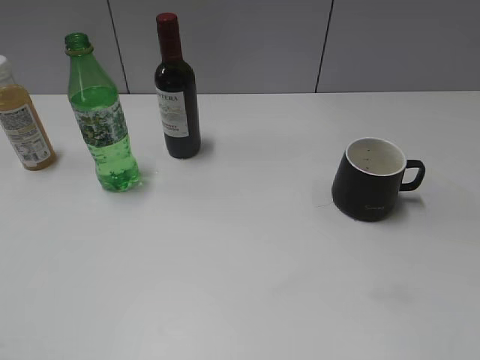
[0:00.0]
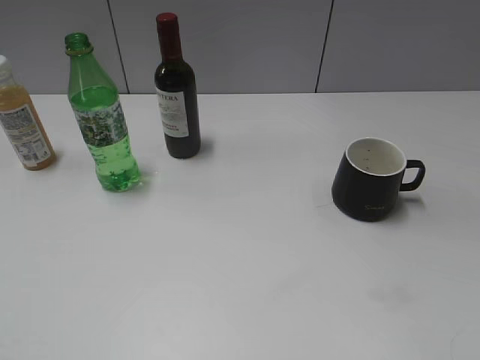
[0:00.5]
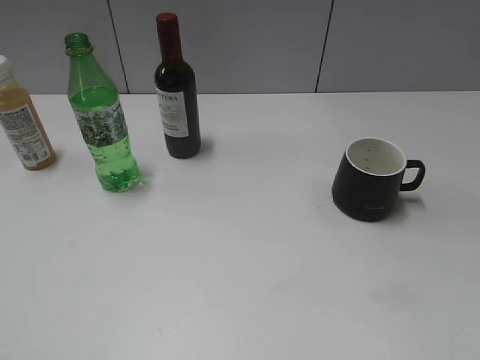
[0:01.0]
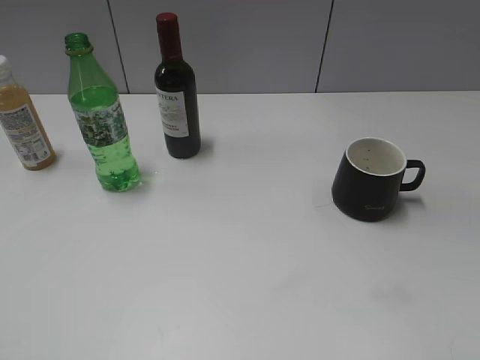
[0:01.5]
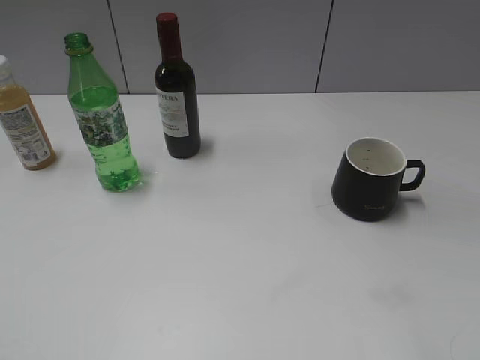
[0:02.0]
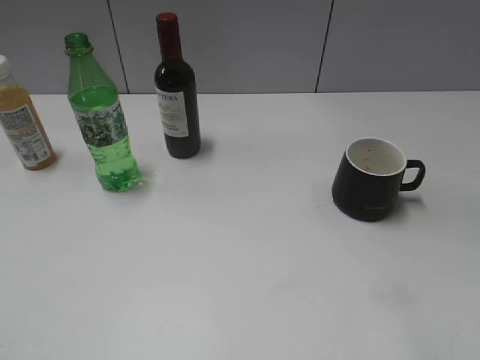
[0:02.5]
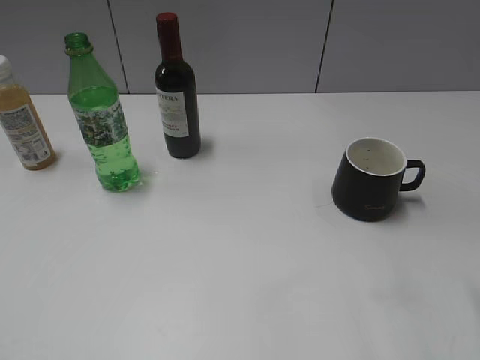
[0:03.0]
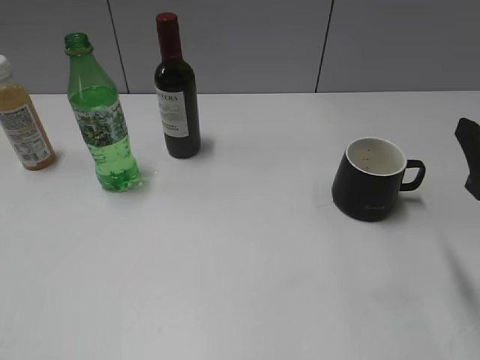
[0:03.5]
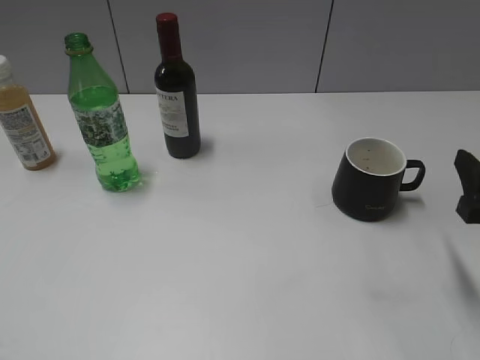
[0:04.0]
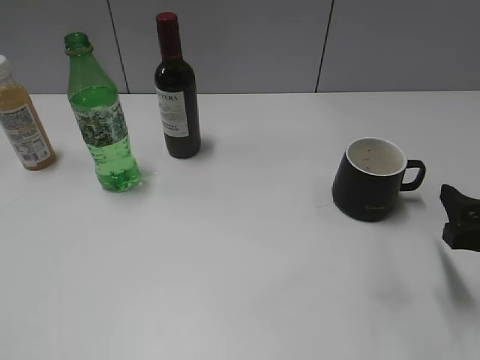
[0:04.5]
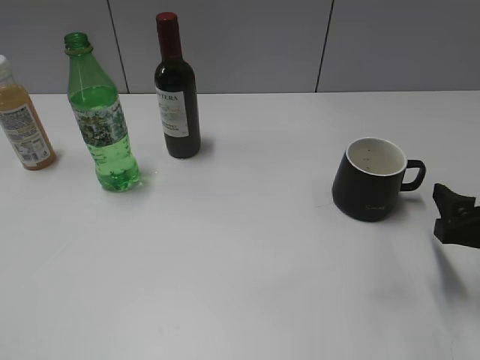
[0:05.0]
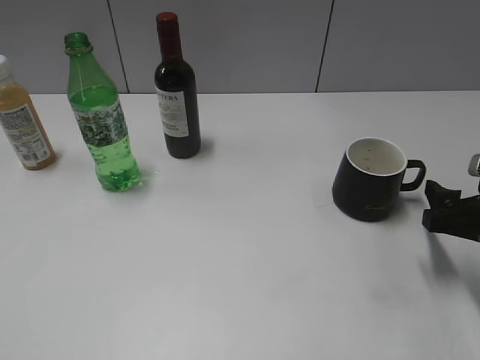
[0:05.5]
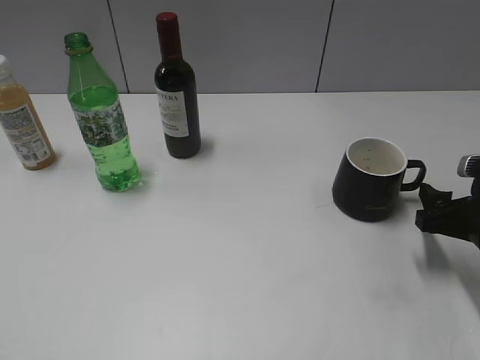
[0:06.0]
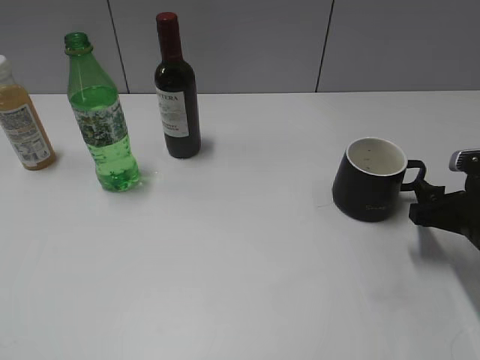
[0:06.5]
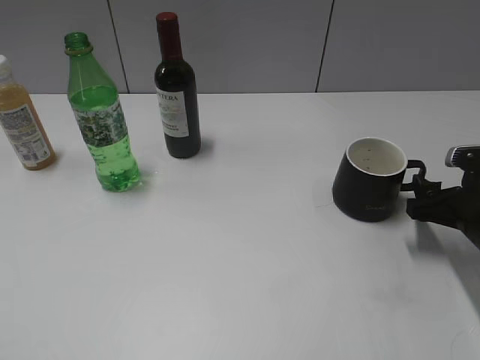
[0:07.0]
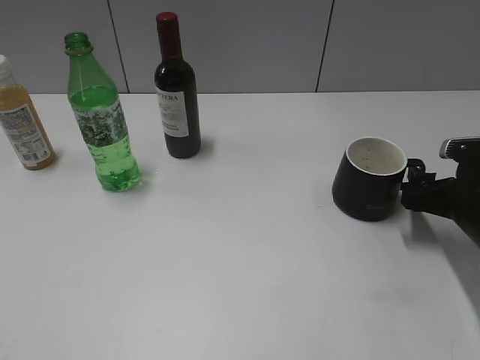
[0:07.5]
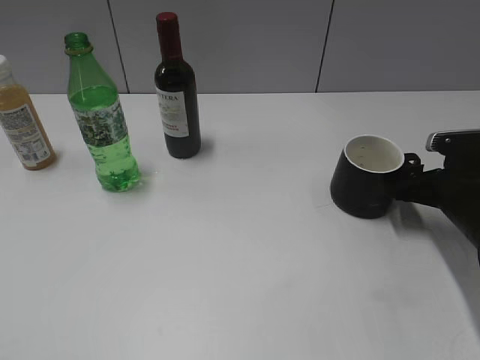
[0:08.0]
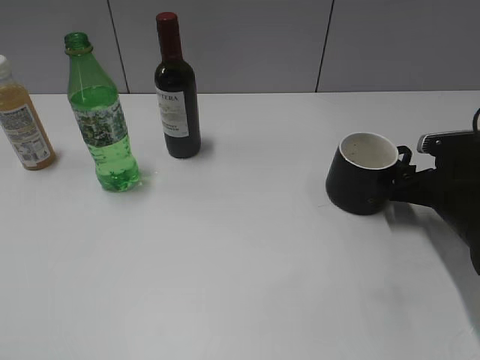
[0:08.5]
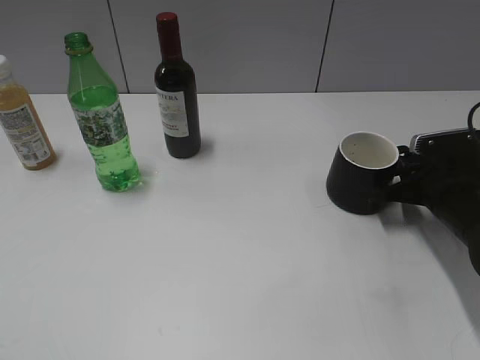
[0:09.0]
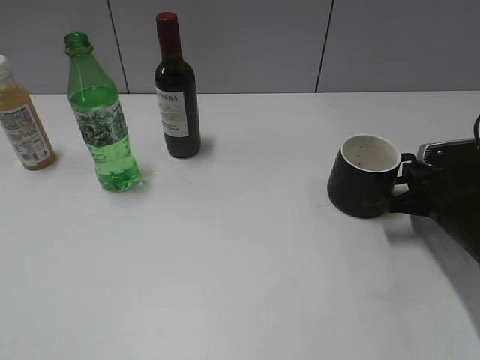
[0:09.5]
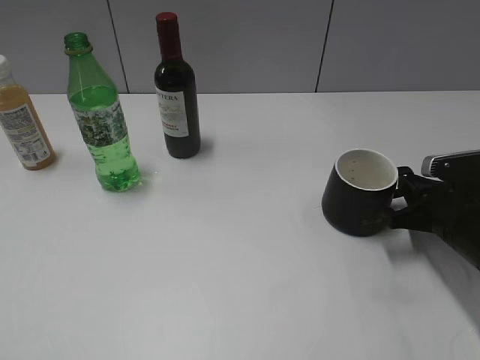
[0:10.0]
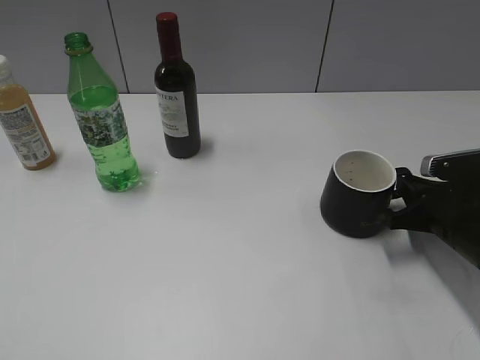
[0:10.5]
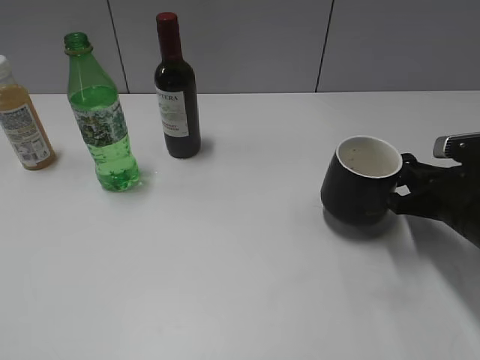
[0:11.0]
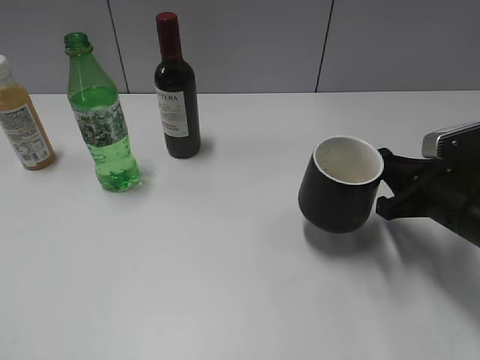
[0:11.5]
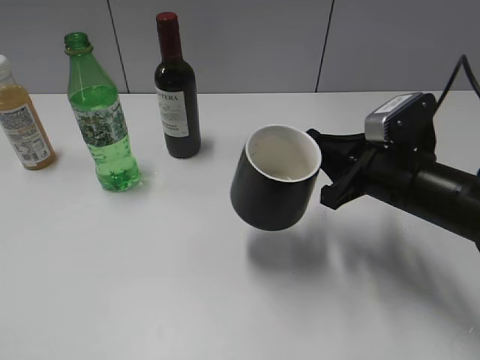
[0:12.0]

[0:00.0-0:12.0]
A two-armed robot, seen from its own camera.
Step, 0:01.5 to 0:09.0: Grasp the black cup with right gripper.
0:02.0 to 0:04.0: The right gripper travels forward and downward by about 20 cm.
0:04.0 to 0:06.0: The right gripper heads downward, covering approximately 5 cm.
0:06.0 to 0:08.0: The right gripper is displaced forward by about 5 cm.
0:08.0 to 0:10.0: The right gripper closes.
0:10.0 to 0:12.0: The right gripper travels to the left and upward by about 10 cm.

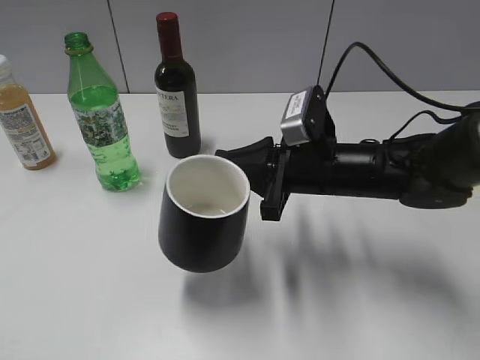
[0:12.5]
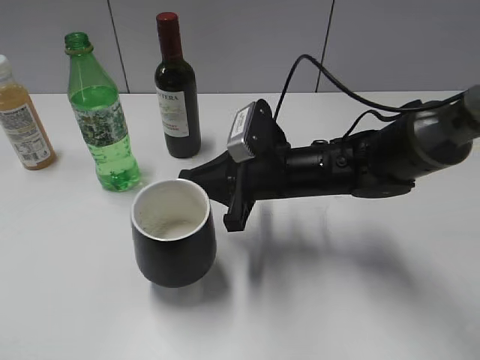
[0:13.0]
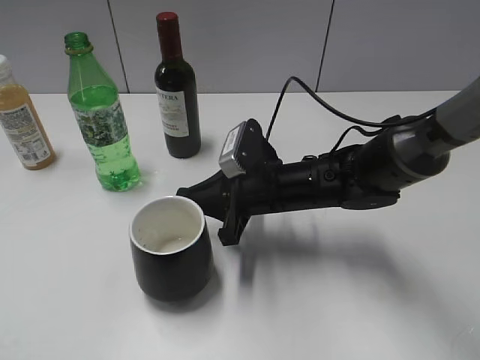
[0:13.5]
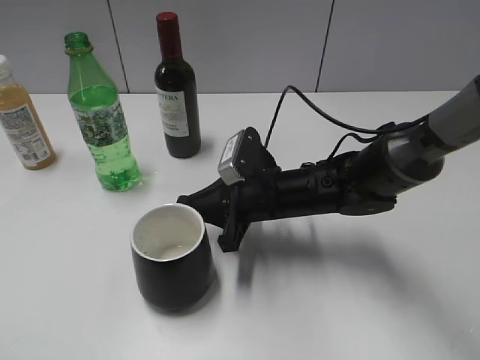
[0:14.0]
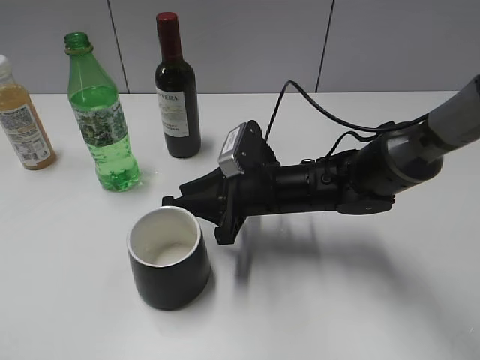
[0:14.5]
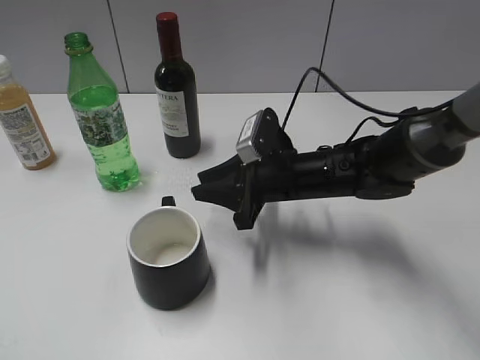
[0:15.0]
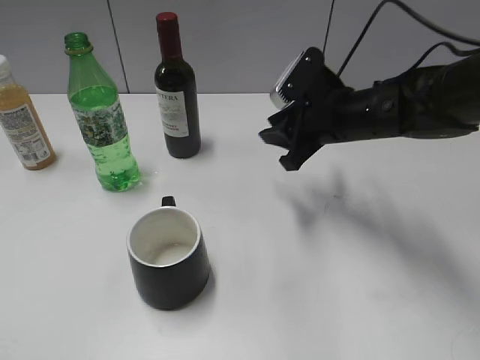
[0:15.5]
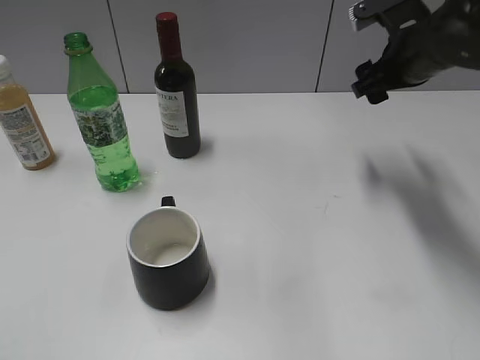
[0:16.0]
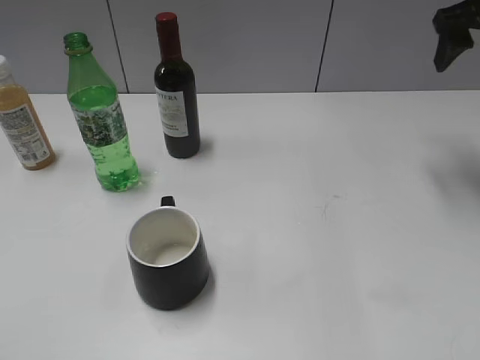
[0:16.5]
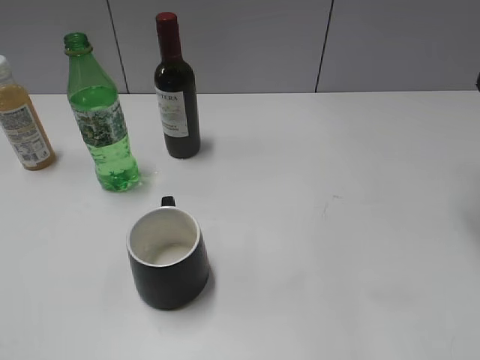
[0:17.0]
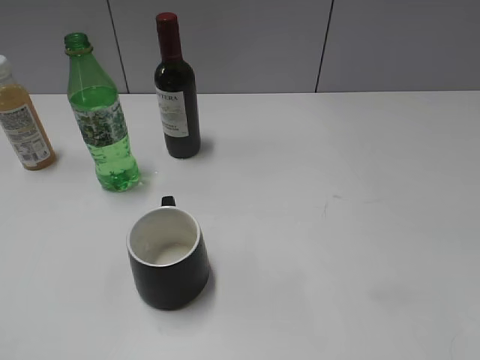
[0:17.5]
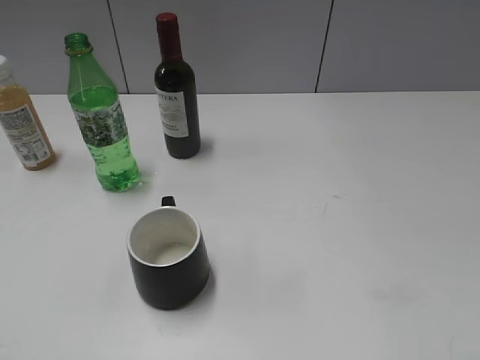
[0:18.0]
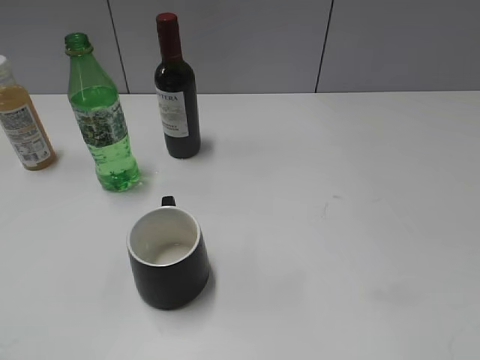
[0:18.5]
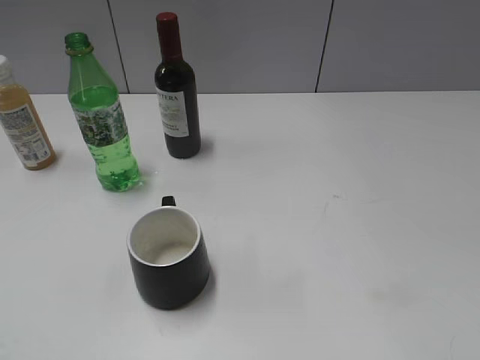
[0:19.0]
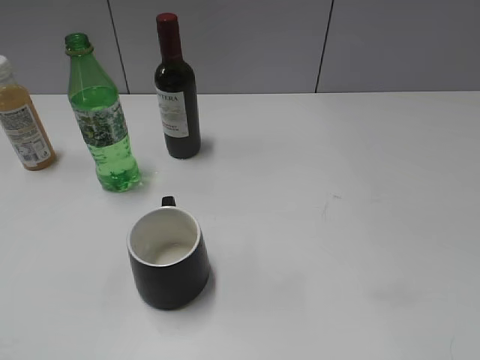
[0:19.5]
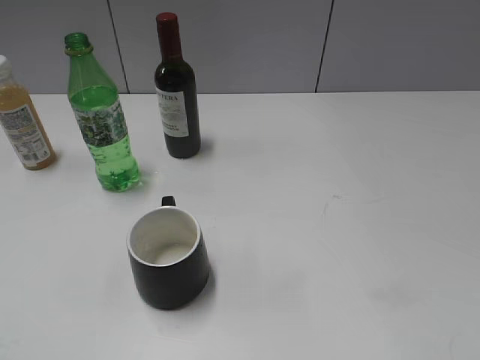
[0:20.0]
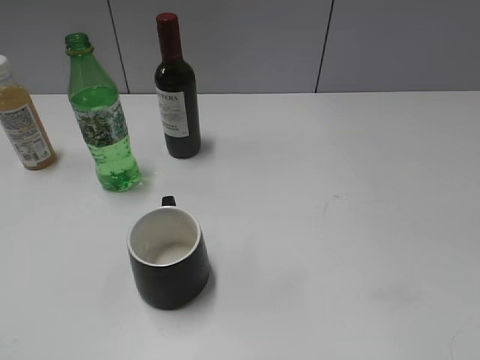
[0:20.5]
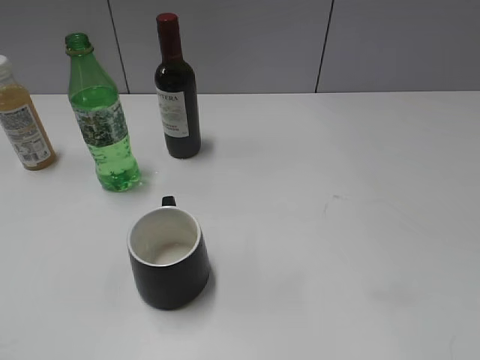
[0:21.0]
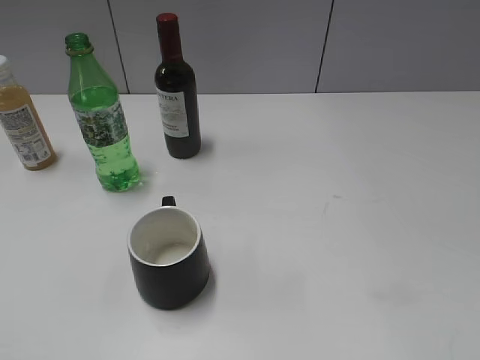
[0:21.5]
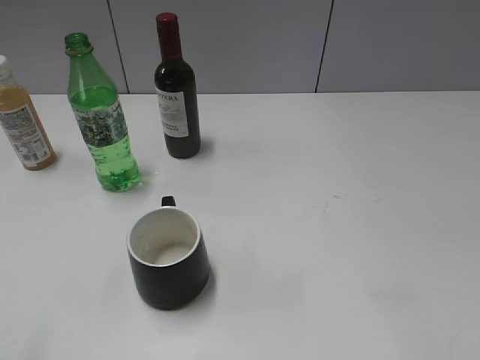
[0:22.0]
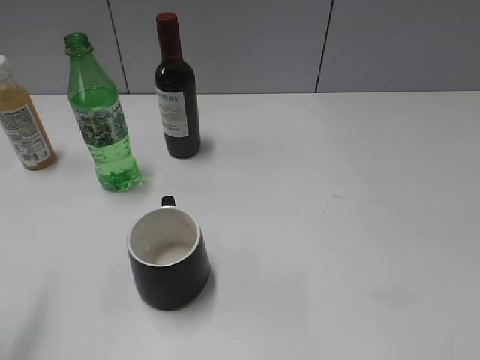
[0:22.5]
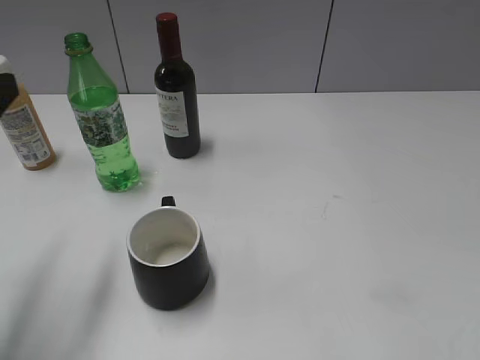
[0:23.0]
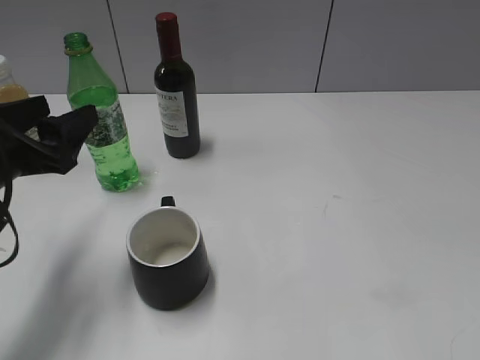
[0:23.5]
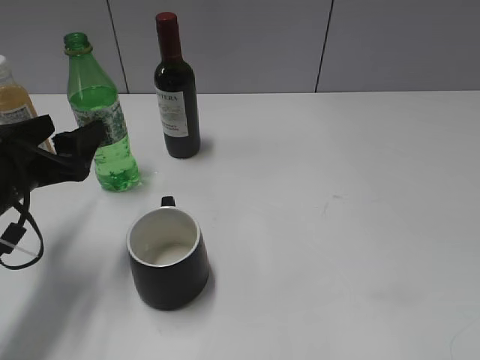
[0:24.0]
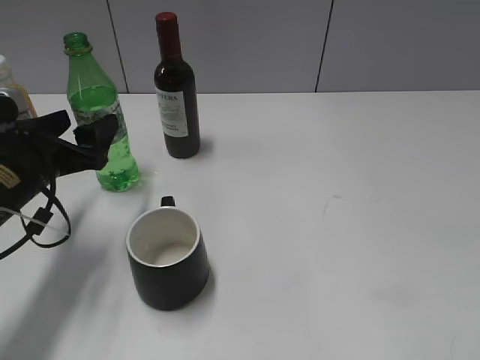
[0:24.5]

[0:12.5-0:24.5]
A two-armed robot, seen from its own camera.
Step, 0:12.5 to 0:14.5: Place the black cup in the center of view with right gripper.
0:12.5 to 0:14.5: The right gripper is displaced downward and to the left by approximately 10 cm.
0:14.5 to 0:16.5: The right gripper is displaced to the right, upward and forward by approximately 35 cm, and opens up.
0:16.5 to 0:18.5: The right gripper moves backward, some 40 cm.
0:22.5 to 0:24.5: The left gripper is displaced forward, downward and to the right by about 20 cm.

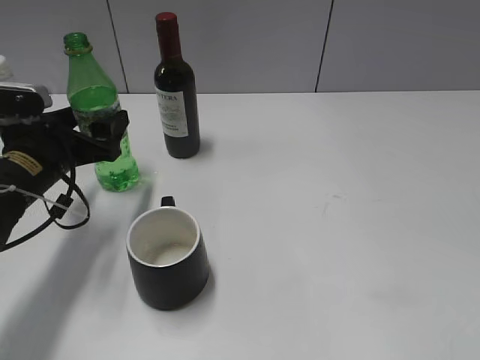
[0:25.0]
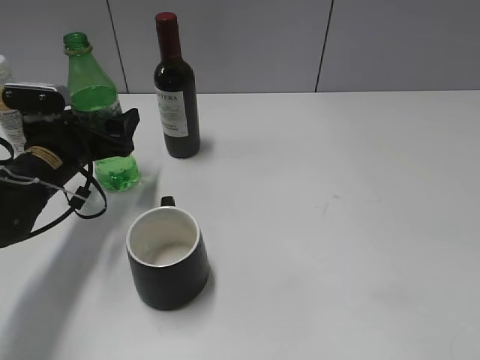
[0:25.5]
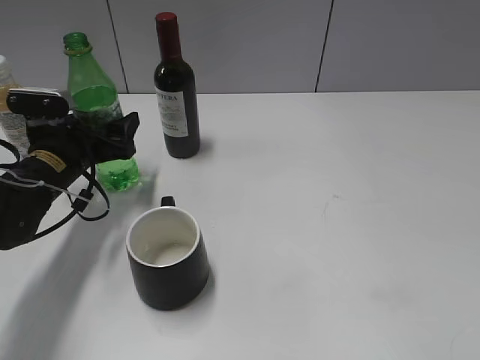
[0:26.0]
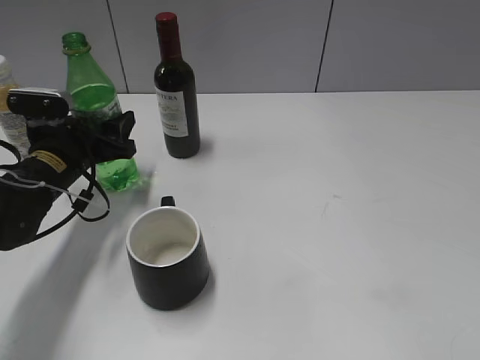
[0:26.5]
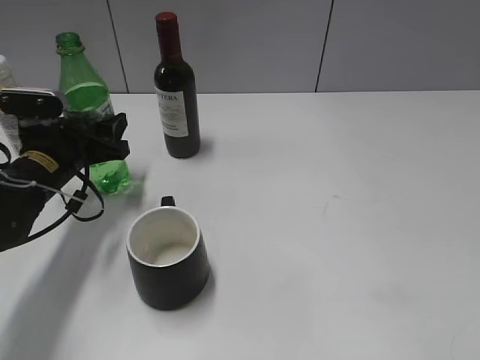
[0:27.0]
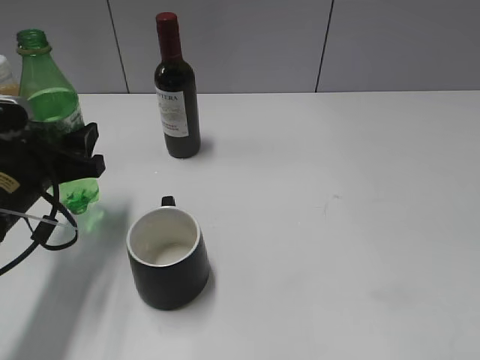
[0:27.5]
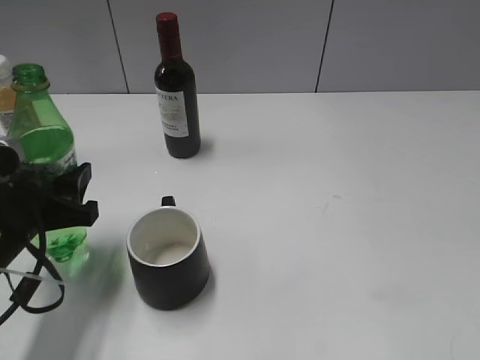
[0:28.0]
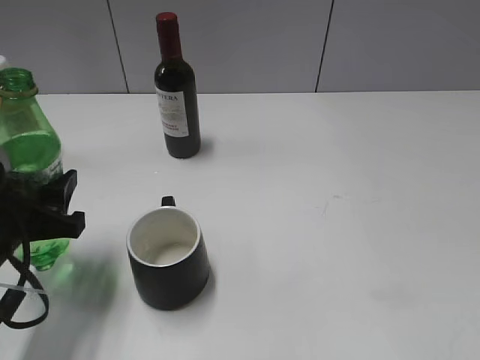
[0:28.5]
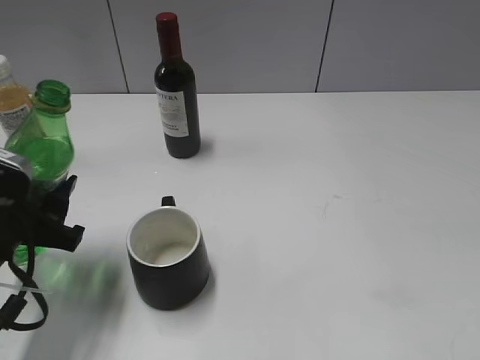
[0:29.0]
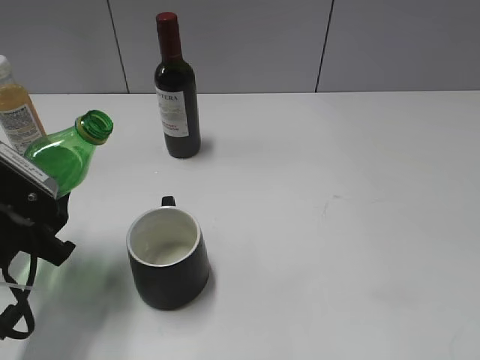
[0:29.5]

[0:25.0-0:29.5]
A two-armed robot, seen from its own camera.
0:25.0 to 0:27.0: The left gripper closes up.
0:27.0 to 0:29.5: The left gripper moves backward, about 15 cm.
